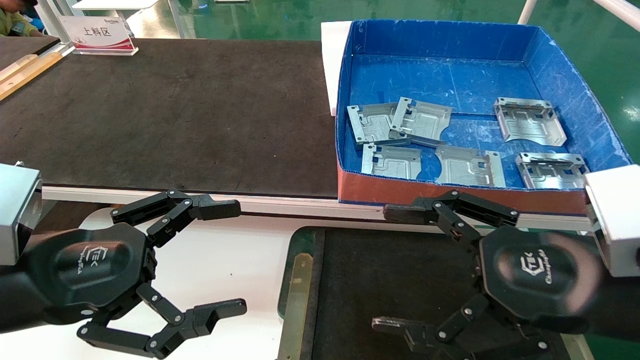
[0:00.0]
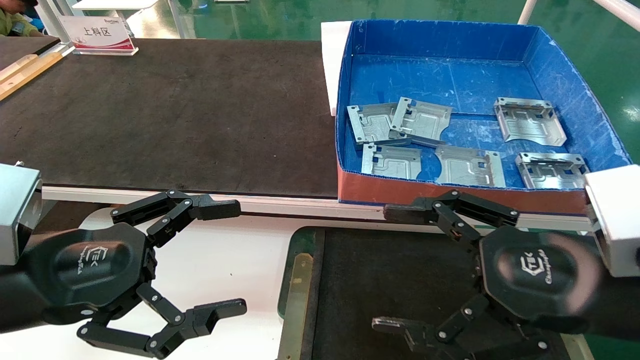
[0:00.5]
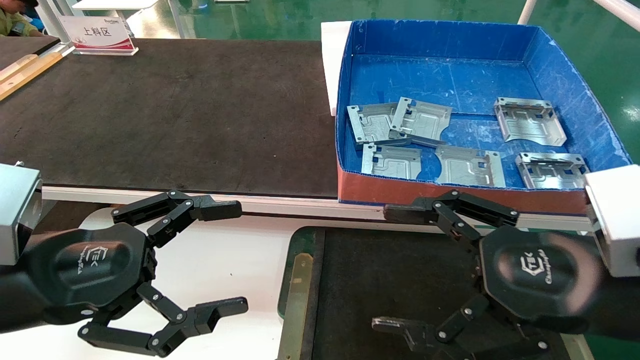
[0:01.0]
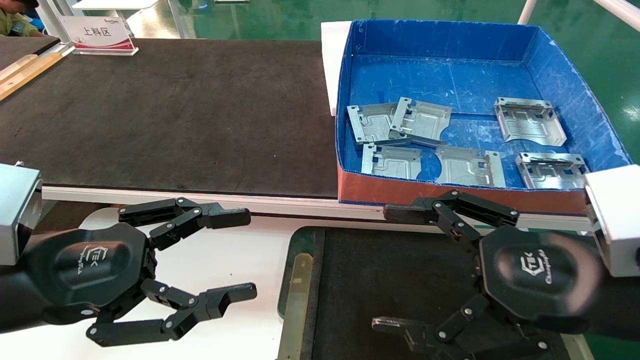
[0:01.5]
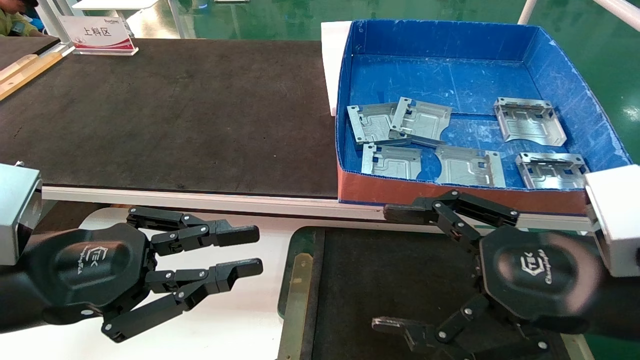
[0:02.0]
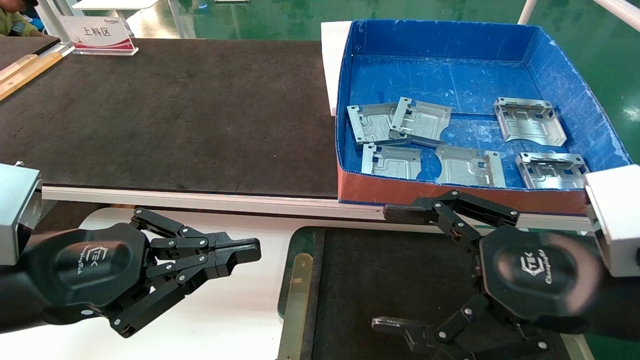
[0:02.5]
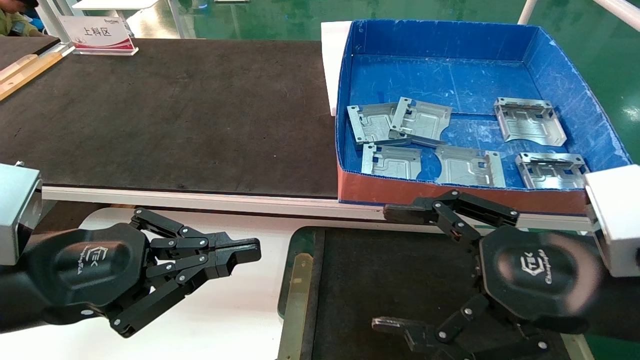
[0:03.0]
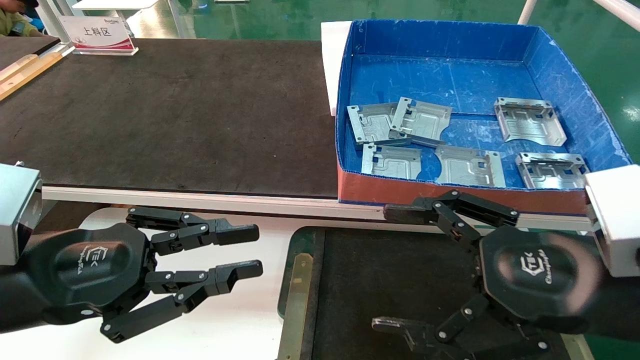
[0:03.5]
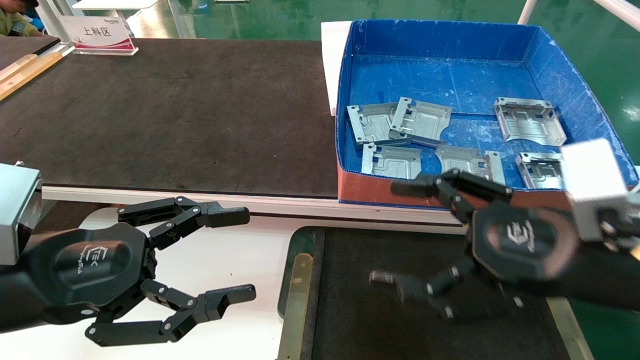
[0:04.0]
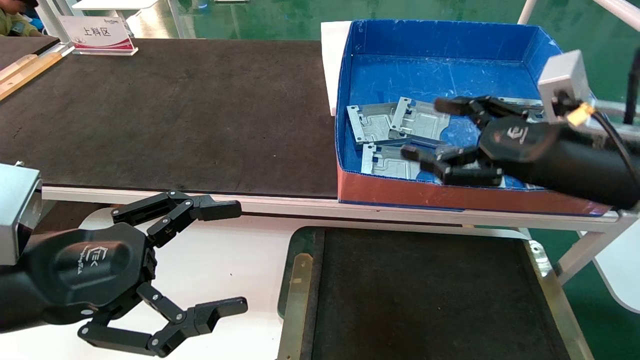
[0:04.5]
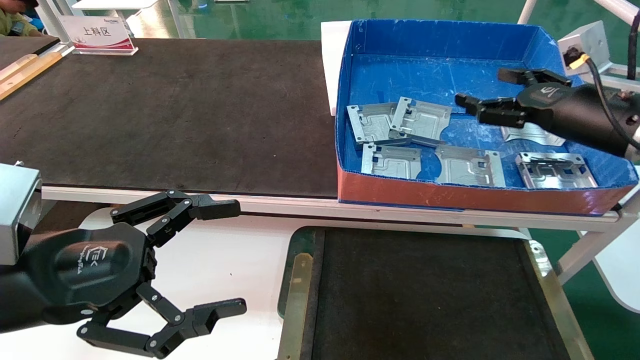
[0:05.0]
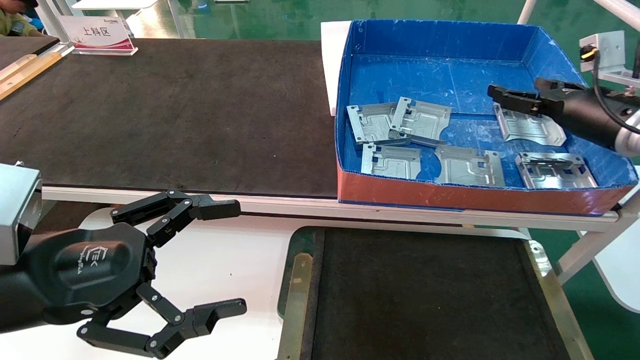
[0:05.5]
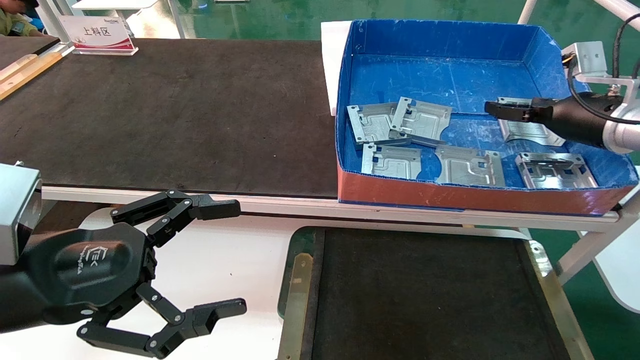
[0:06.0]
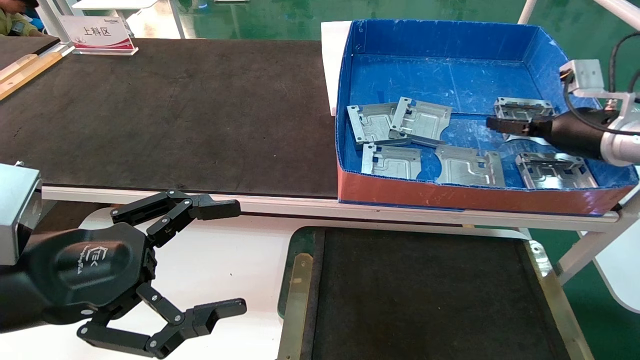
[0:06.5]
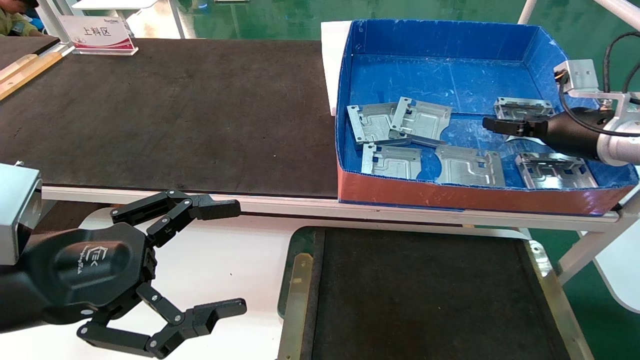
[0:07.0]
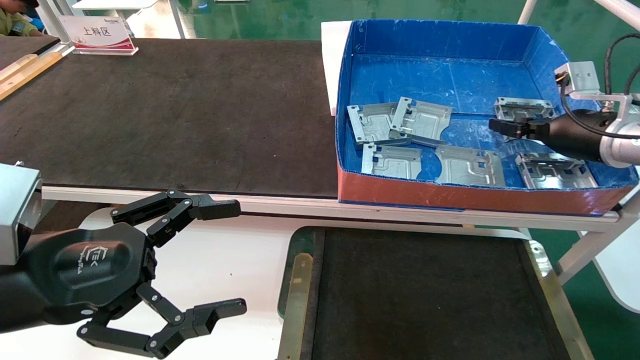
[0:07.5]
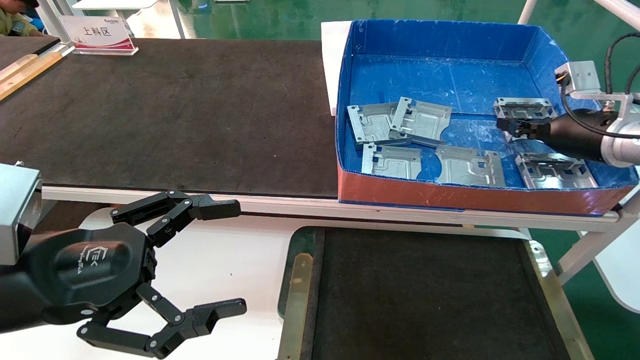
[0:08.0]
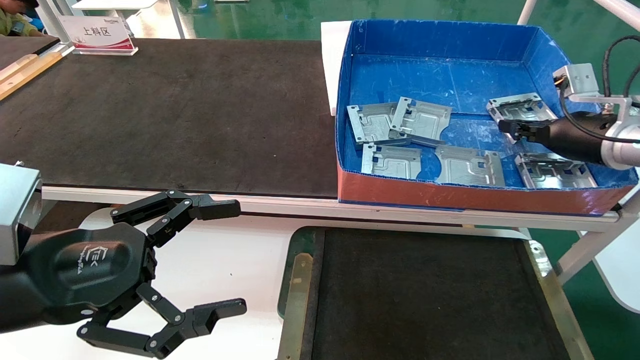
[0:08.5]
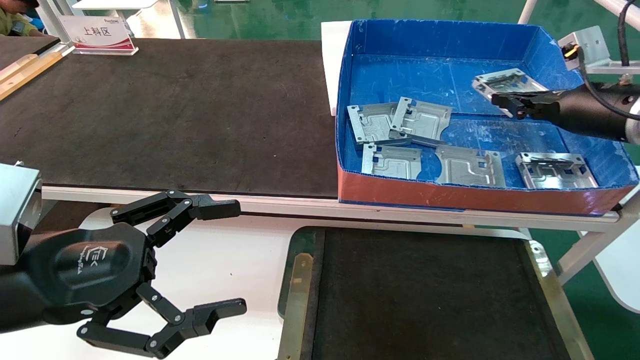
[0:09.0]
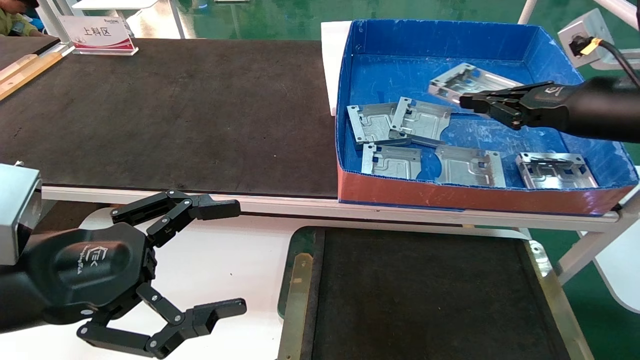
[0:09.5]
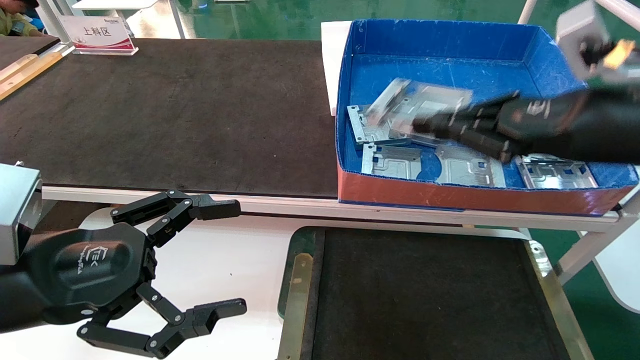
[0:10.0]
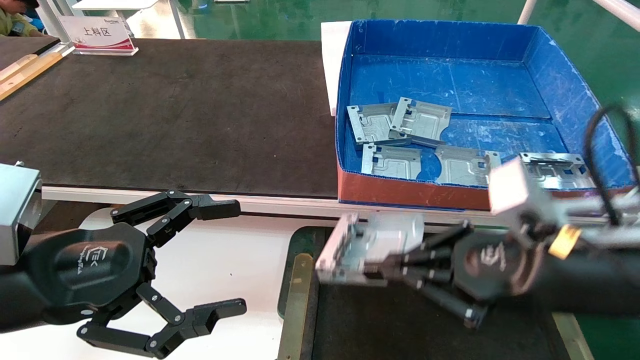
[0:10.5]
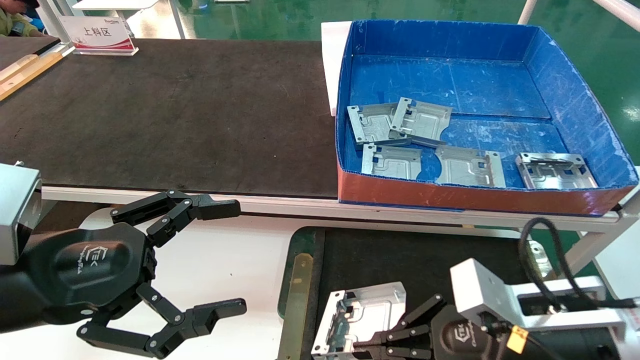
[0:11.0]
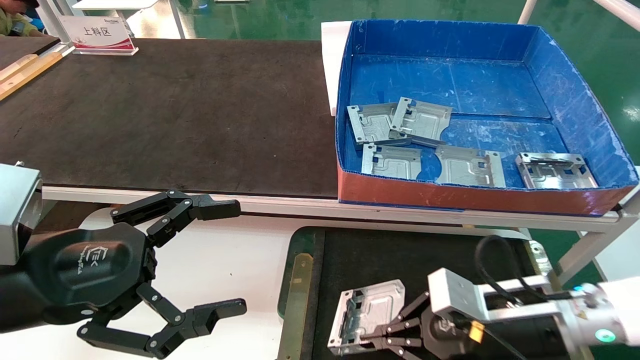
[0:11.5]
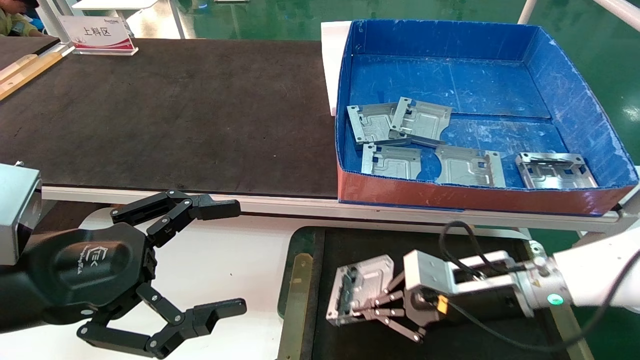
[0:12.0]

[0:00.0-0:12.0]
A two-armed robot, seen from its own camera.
Task of the whole recording: pick up parts and place them into a black container.
Step, 0:04.5 to 0:08.0: Pick up the hard drive bracket from the feeding area.
0:00.0 to 0:02.0: The left gripper closes.
0:02.0 to 0:04.0: The grippers move only a little.
0:04.0 to 0:06.0: The right gripper heads forward and to the right, covering roughly 25 cm, while the left gripper opens its fingers.
0:06.0 to 0:08.0: The right gripper closes.
0:08.0 to 0:10.0: The right gripper is displaced backward and to the left by roughly 20 cm.
0:10.0 to 0:12.0: The right gripper moves downward, roughly 20 cm.

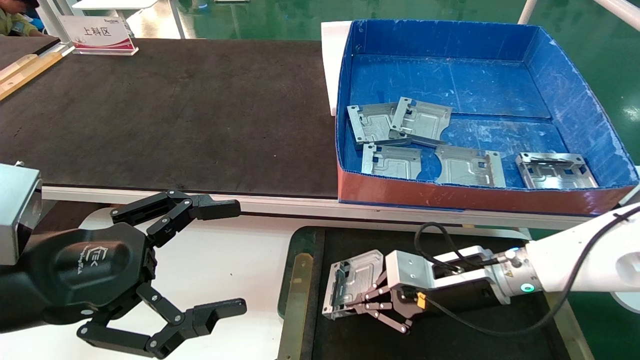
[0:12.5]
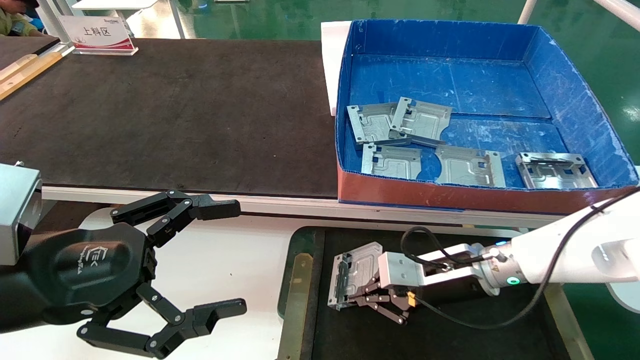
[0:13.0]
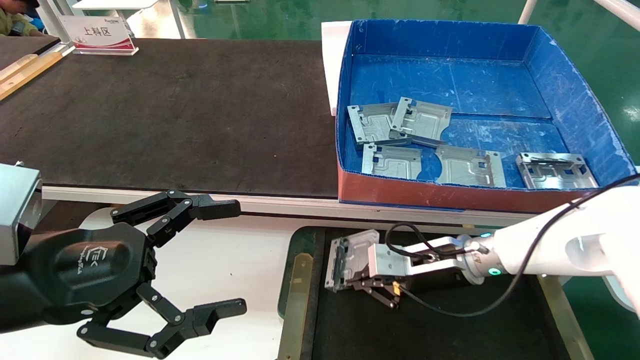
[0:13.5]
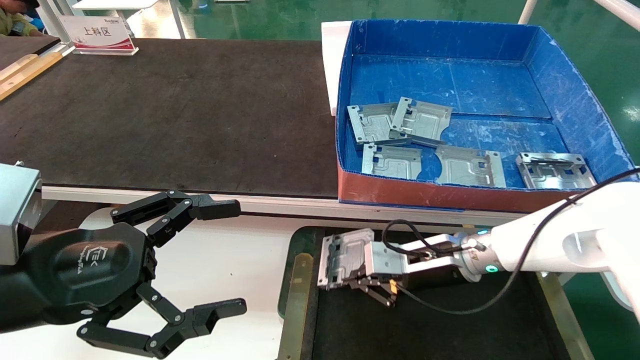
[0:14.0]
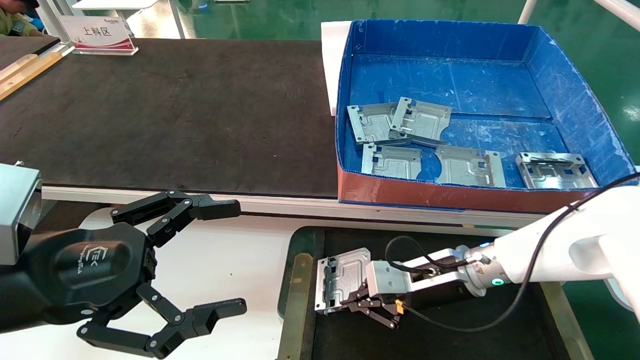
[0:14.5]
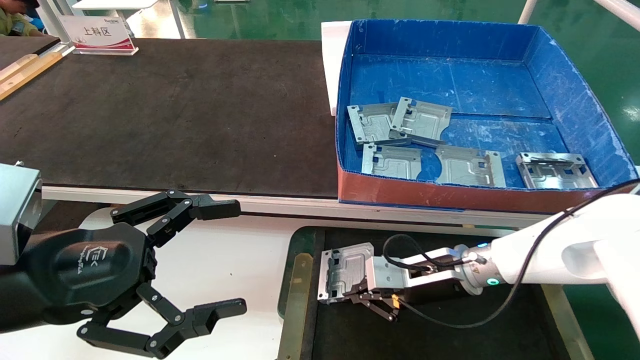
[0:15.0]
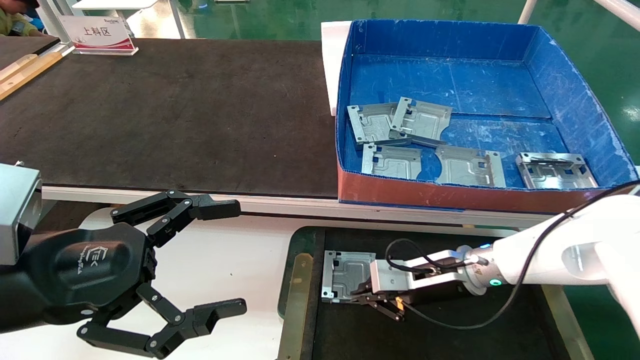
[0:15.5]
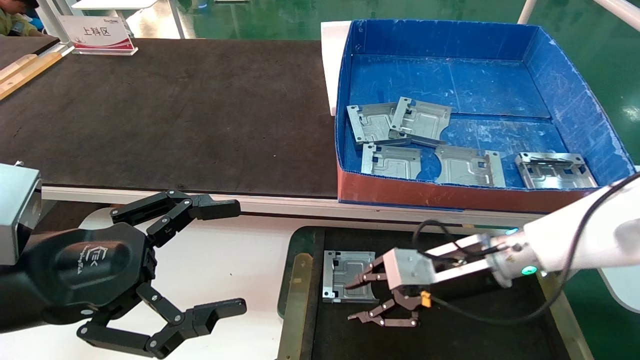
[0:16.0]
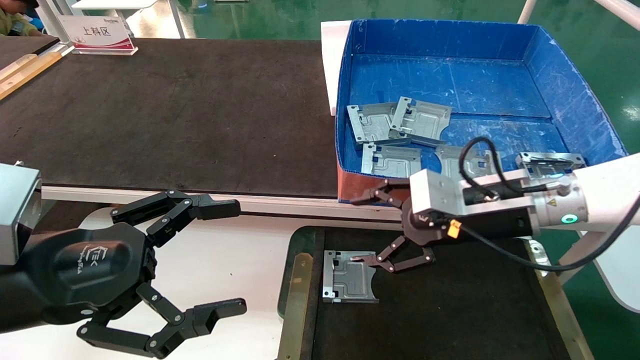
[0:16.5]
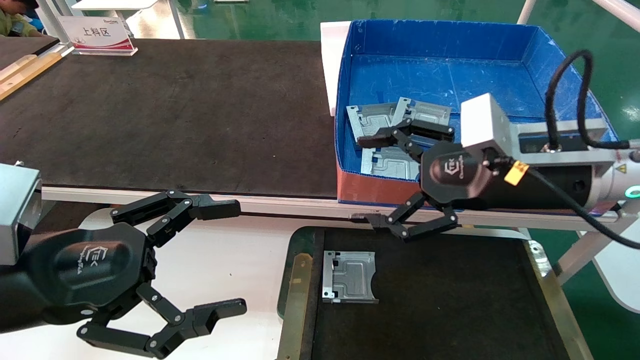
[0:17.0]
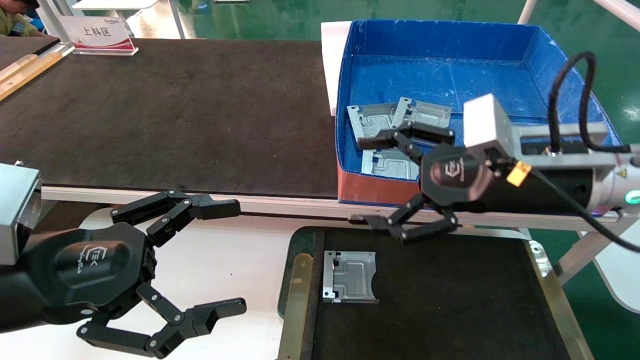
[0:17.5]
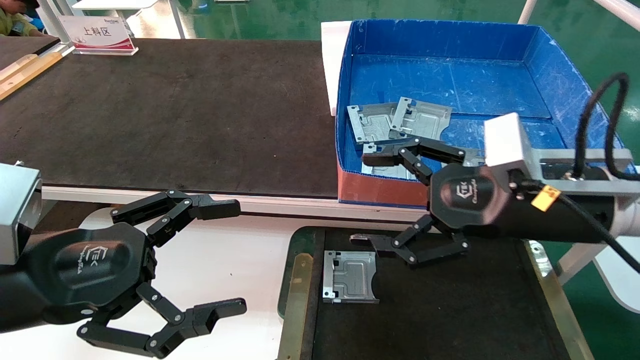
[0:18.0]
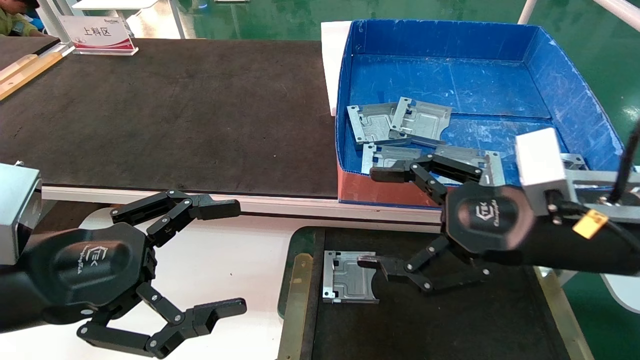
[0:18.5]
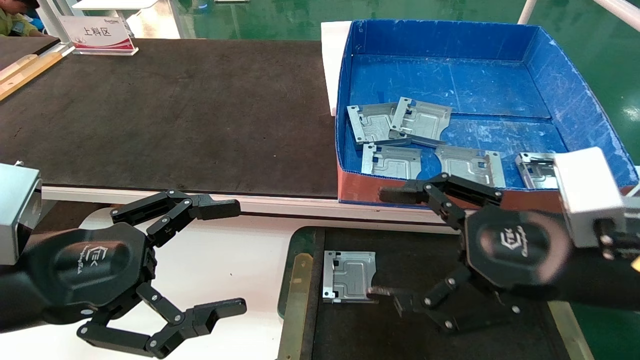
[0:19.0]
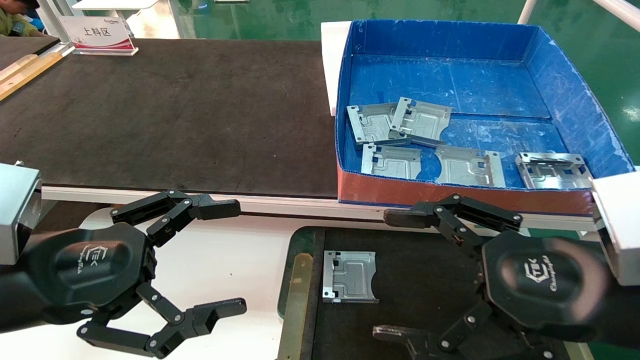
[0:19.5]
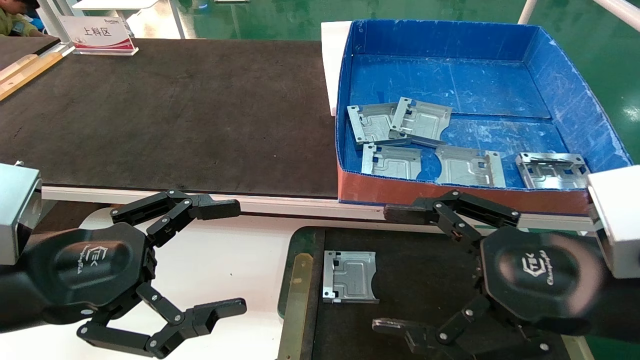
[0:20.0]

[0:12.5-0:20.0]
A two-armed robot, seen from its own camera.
Task of the whole recording: pick up parts and place them into a black container.
Step, 0:12.5 to 0:15.5: Place the hard drive bracket into the box.
0:12.5 to 0:14.5: There are only small adjustments of the grippers.
0:14.5 to 0:16.5: The right gripper goes roughly 10 cm upward, and opens.
0:16.5 to 0:18.0: The right gripper is displaced backward by about 5 cm.
0:18.0 to 0:20.0: The right gripper is displaced backward by some 10 cm.
